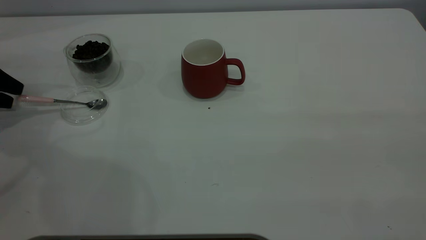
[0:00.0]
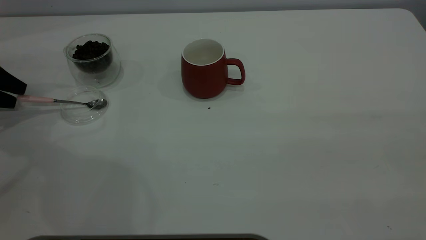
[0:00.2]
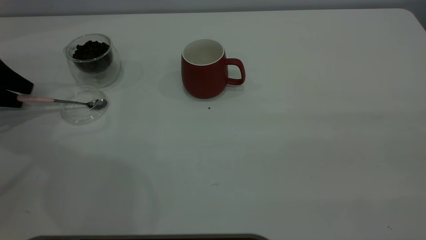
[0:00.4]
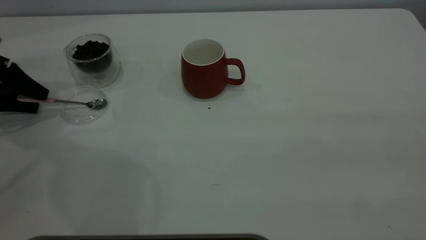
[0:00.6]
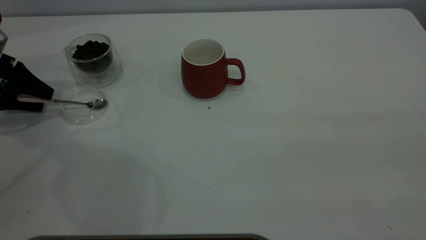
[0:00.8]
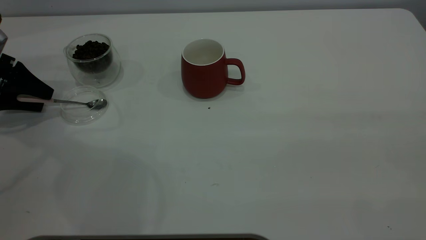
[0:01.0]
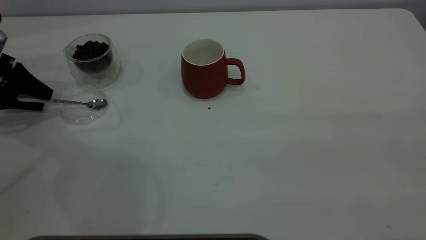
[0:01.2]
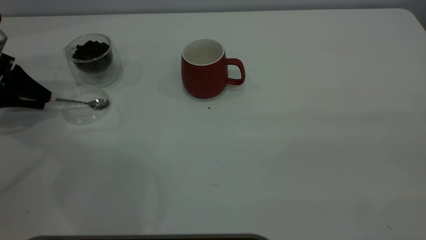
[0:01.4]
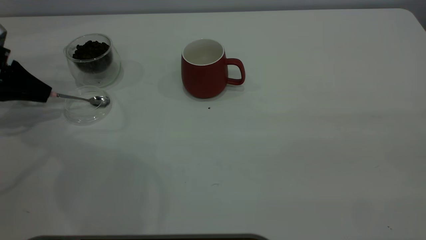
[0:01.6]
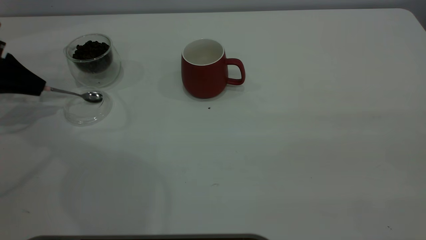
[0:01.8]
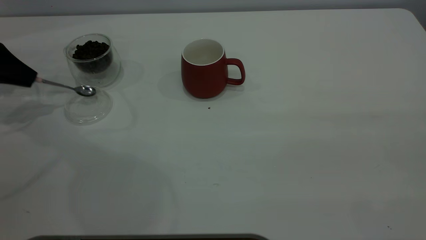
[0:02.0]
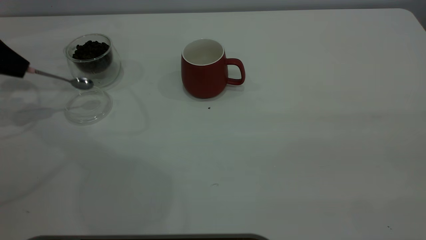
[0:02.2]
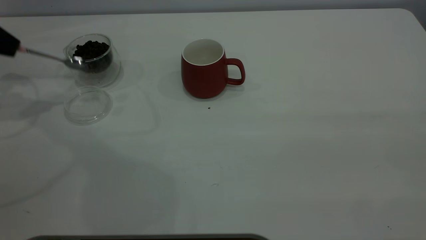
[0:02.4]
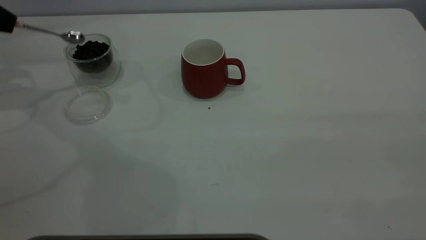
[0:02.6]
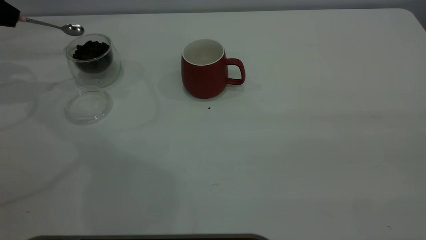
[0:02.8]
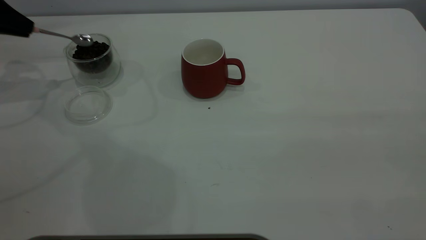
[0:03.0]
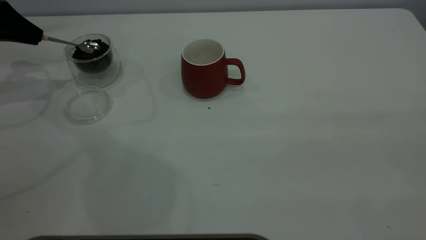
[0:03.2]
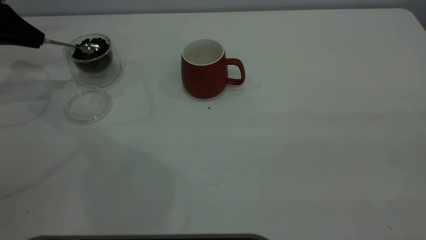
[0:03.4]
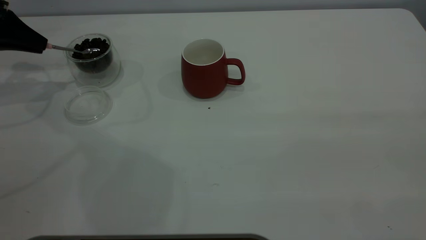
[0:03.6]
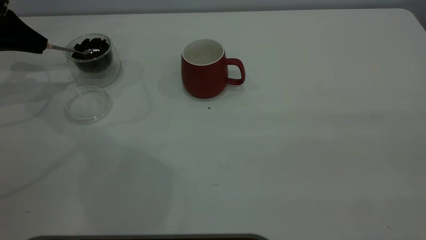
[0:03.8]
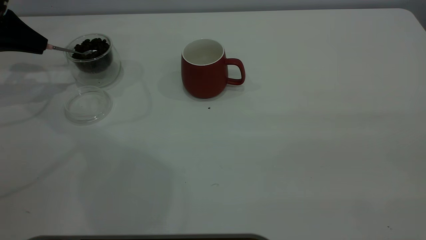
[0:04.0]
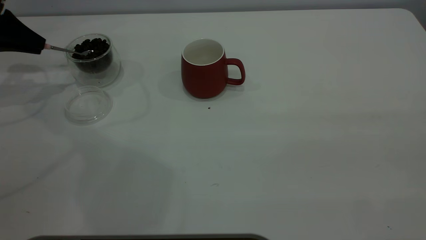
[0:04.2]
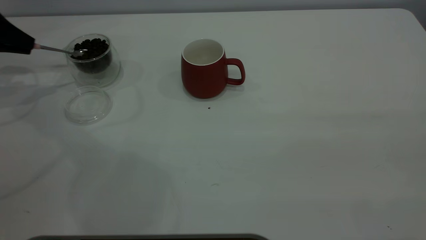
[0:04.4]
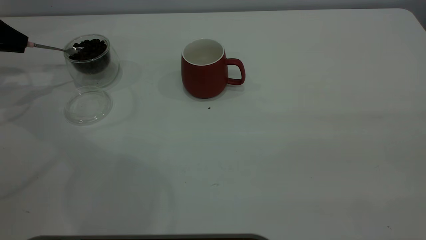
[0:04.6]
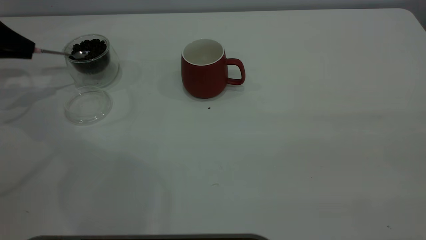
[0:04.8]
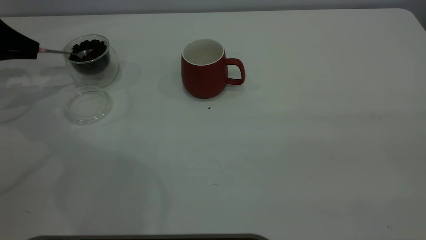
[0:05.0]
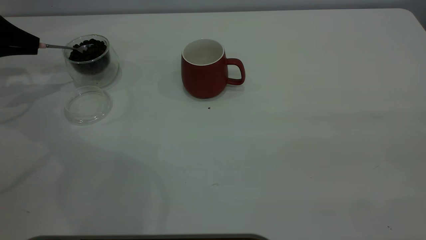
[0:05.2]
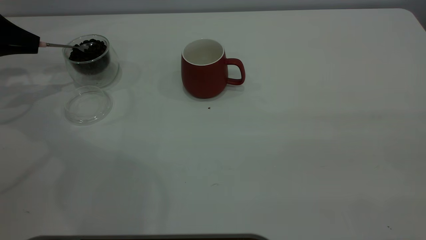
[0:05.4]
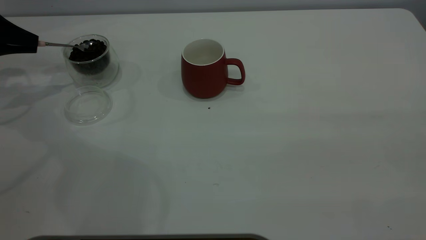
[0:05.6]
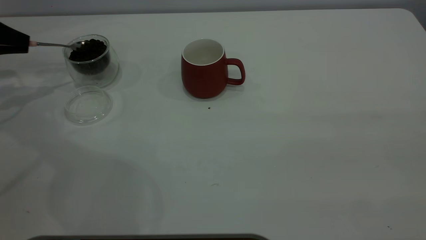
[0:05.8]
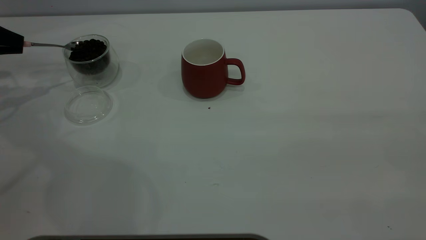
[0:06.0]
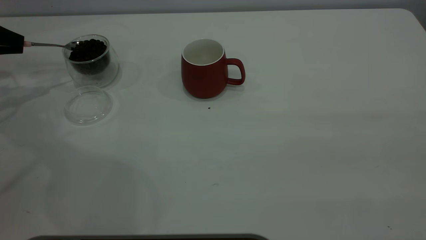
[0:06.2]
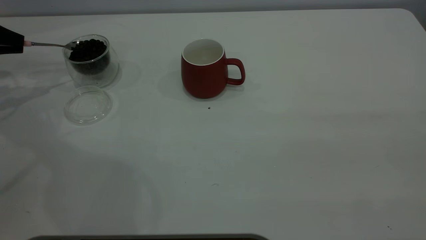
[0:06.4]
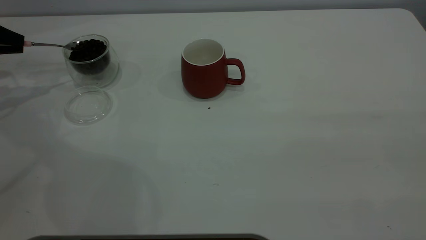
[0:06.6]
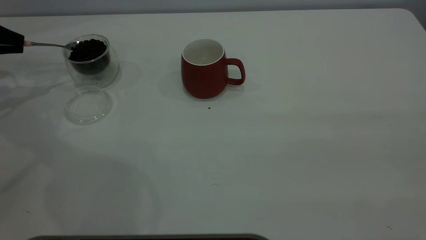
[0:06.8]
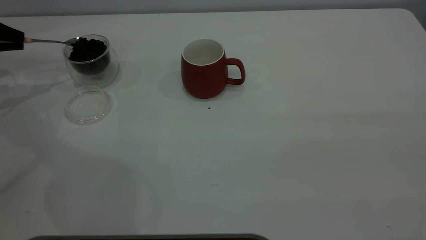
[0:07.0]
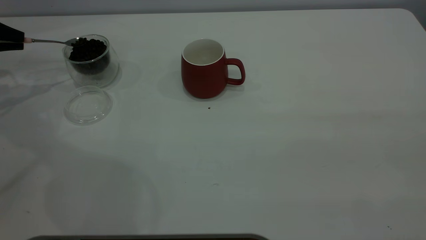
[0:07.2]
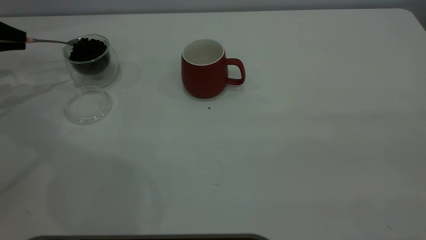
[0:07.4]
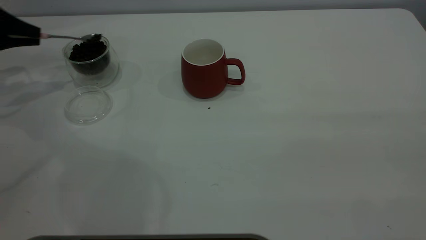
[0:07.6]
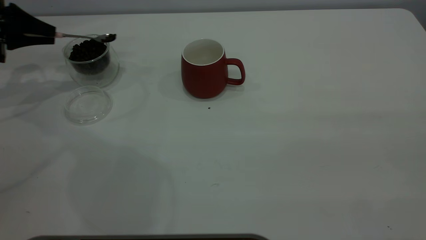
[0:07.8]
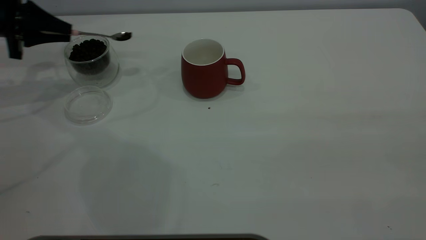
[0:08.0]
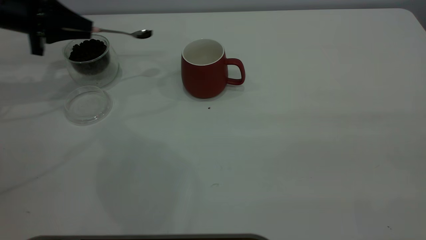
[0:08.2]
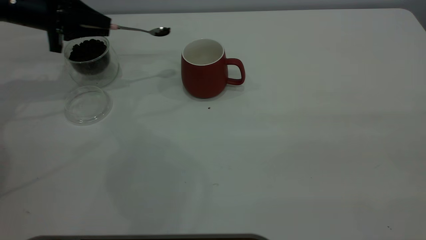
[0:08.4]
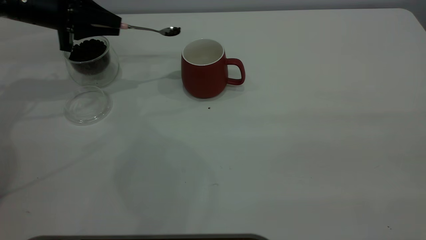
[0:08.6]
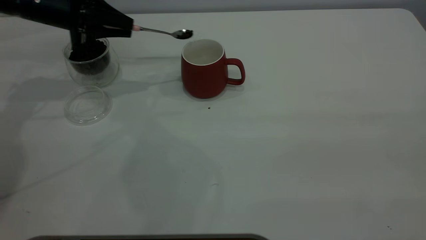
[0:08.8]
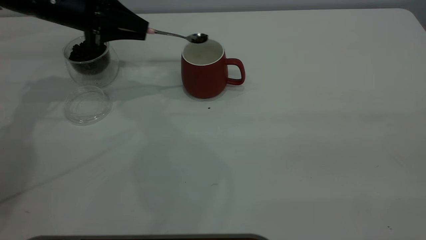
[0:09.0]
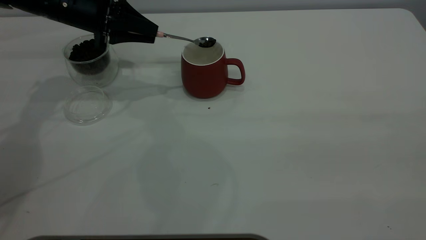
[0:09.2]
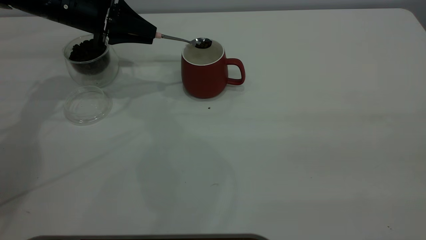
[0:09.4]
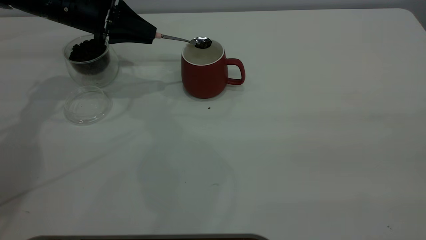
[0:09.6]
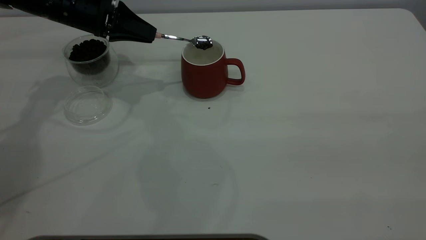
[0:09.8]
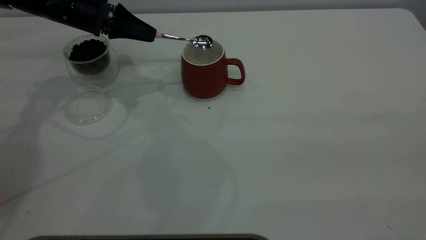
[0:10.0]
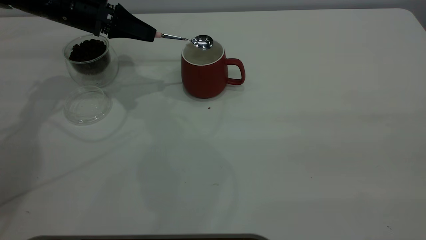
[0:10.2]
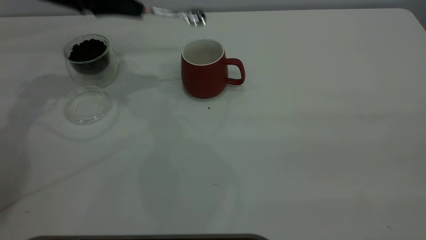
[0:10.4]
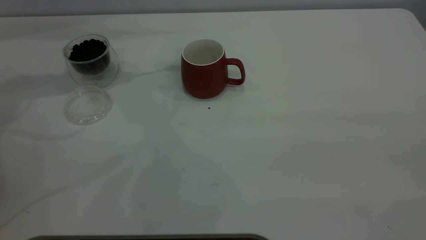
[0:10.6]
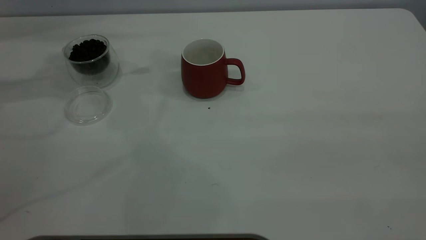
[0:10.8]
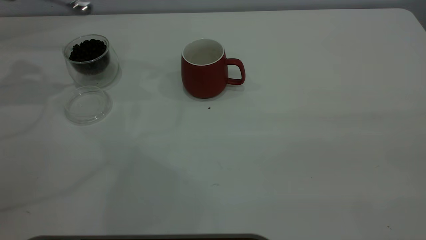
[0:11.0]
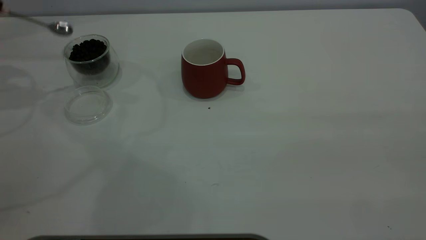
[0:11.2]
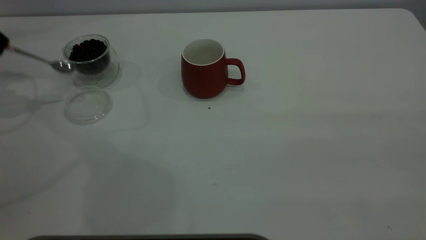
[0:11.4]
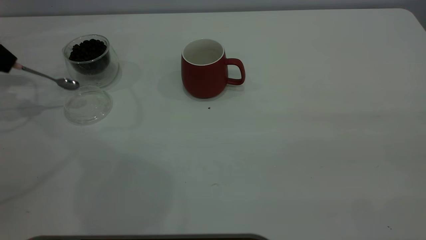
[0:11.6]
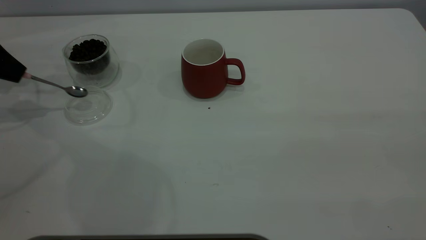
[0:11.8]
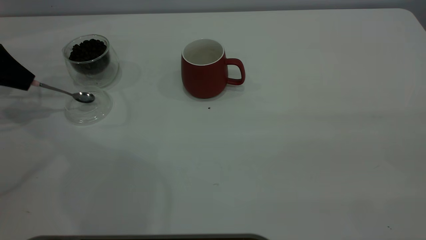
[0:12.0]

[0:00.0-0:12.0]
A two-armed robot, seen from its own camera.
Task of the whole recording: the right gripper place the red cup in the center of the table, the left gripper take the pink spoon from the cup lid and scoop out the coffee beans from the coffee cup and put them into the red cup, the left gripper put the spoon back into the cup lid.
Step, 0:00.0 to 0:02.2: Pick up the spoon.
Step, 0:02.4 to 0:10.2: Scoop a spoonful of beans into the cup.
0:00.0 to 0:01.6: The left gripper closes up.
0:01.6 to 0:03.0: The left gripper moves upward, approximately 10 cm.
0:03.0 to 0:04.4: The grippers move only a little.
0:04.4 to 0:06.0: The grippers stay close to where they were, moving slightly.
0:06.0 to 0:07.6: The grippers stay close to where they were, moving slightly.
0:07.6 to 0:09.0: The left gripper is displaced to the right by some 20 cm.
0:09.0 to 0:10.4: The left gripper is displaced upward by approximately 5 cm.
0:10.4 to 0:12.0: The left gripper is displaced to the left and downward by some 20 cm.

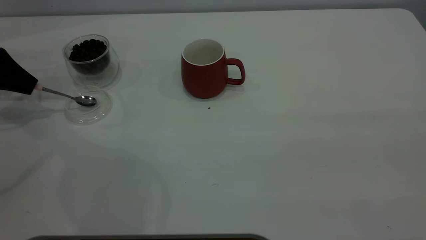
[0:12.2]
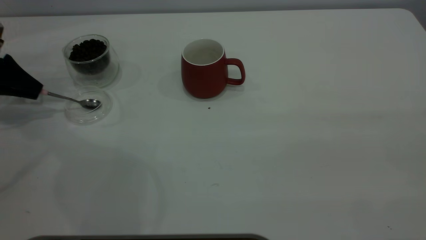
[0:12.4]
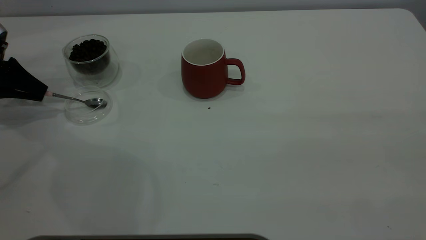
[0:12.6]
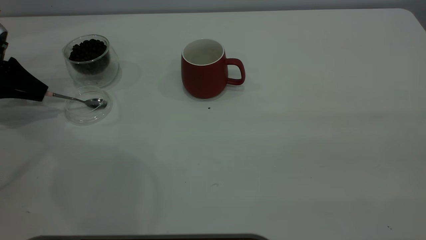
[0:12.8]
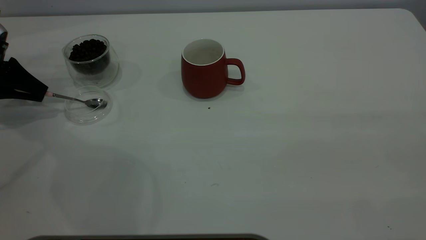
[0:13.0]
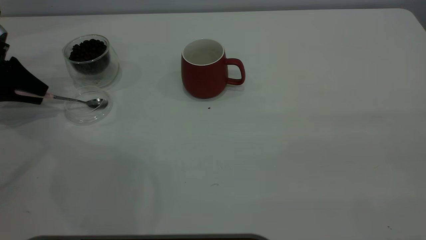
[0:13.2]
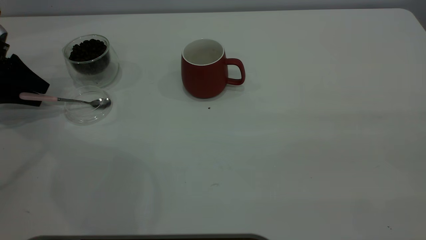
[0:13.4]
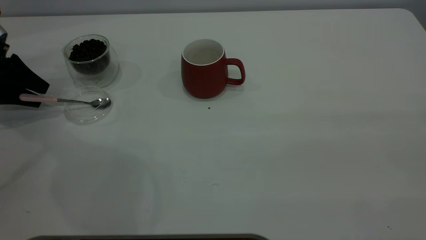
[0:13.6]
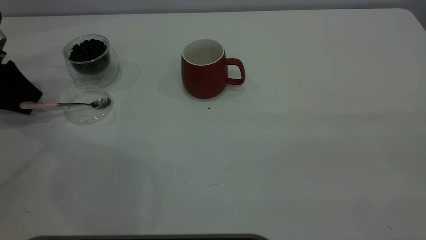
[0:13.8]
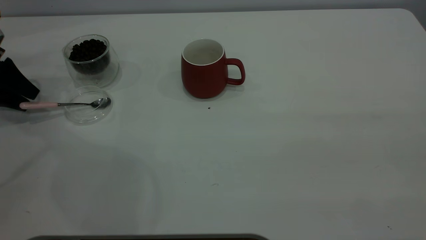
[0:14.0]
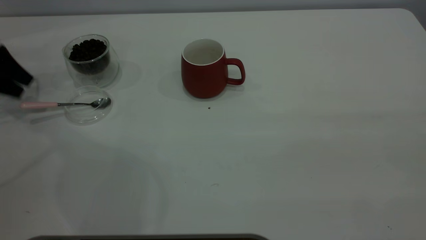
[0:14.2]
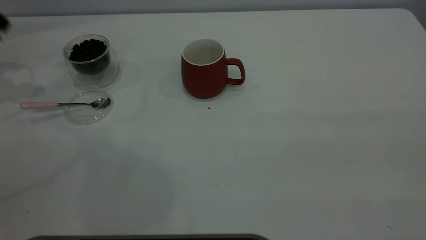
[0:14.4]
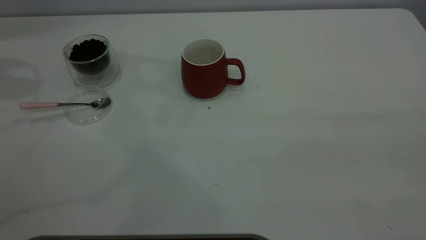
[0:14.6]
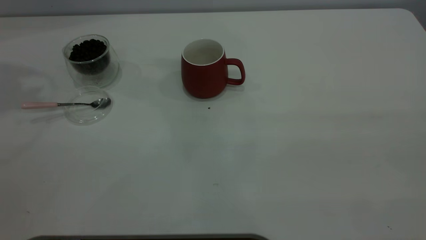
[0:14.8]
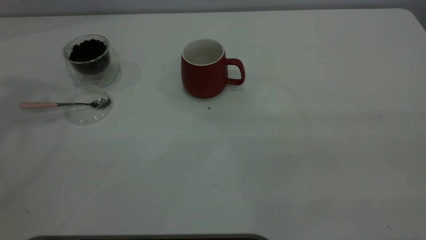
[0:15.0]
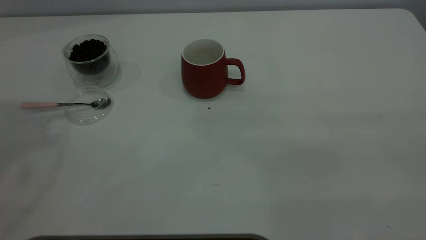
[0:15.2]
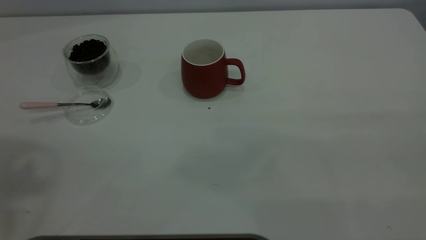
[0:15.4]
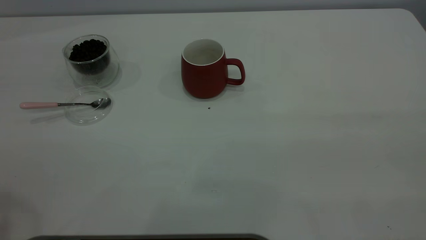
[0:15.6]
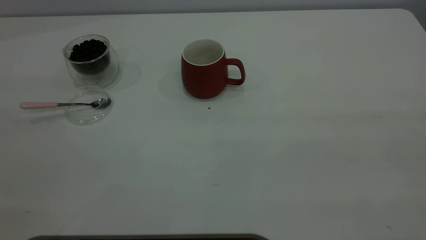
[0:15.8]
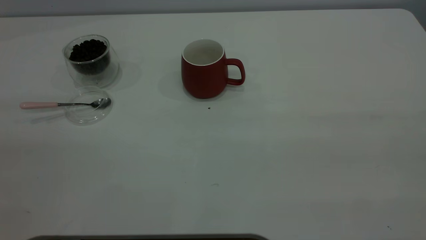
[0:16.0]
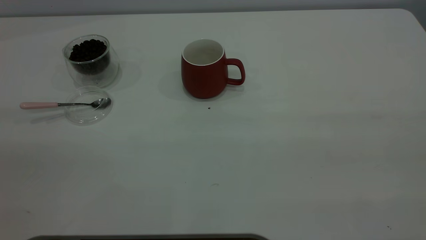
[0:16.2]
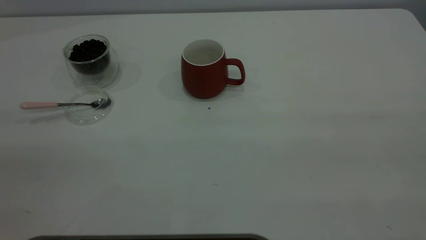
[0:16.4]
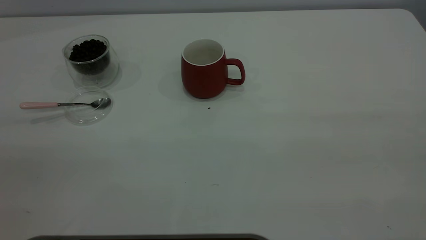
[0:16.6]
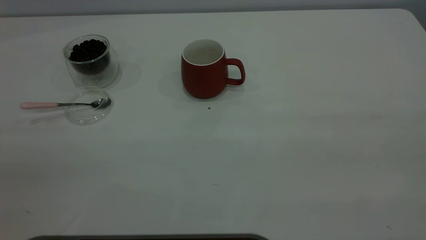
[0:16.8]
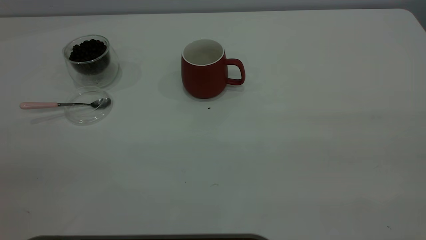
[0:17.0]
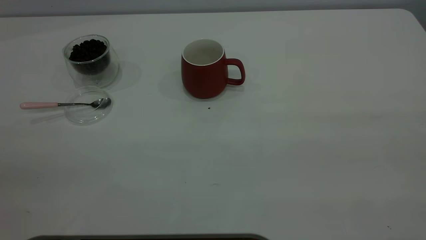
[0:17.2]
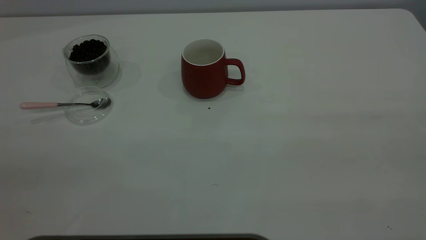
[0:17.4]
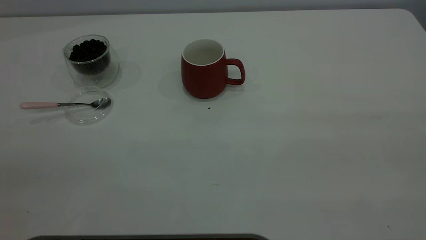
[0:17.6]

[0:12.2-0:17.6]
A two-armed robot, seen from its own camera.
Task of the whole recording: the right gripper place the red cup in the center of the table, the left gripper take the pink spoon from the cup lid and scoop out the coffee beans from the coffee cup and put them into the red cup, the left gripper put the spoon back into the cup lid.
Step, 0:12.2 to 0:14.2: Place the spoon back in its original place.
0:12.2 to 0:13.6: The left gripper opens.
0:13.6 to 0:15.0: The left gripper travels upward by some 40 cm.
